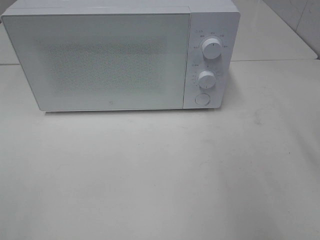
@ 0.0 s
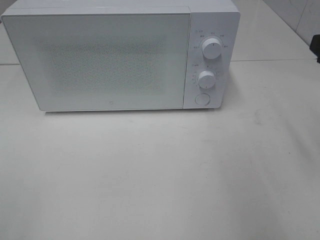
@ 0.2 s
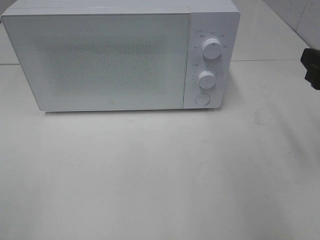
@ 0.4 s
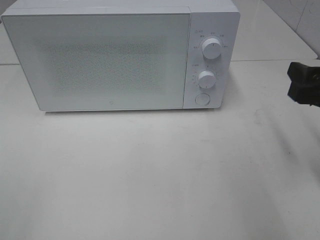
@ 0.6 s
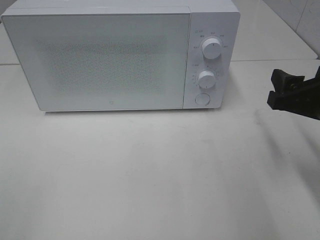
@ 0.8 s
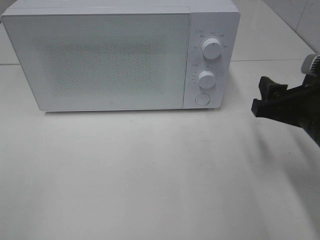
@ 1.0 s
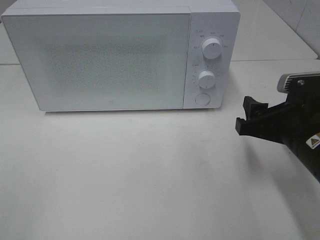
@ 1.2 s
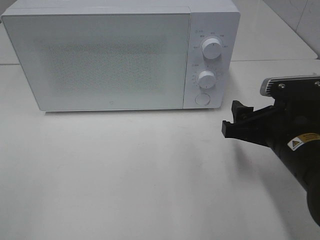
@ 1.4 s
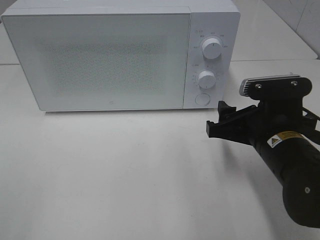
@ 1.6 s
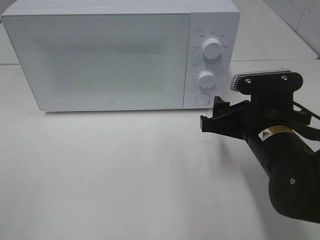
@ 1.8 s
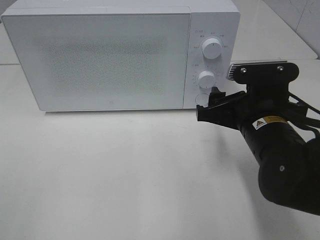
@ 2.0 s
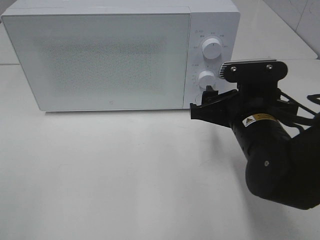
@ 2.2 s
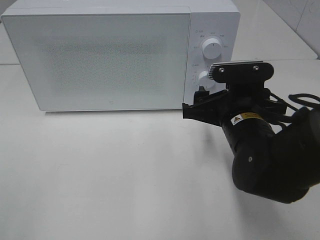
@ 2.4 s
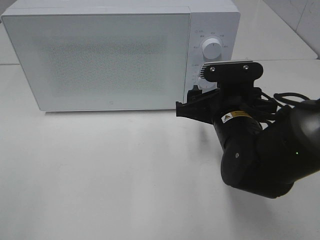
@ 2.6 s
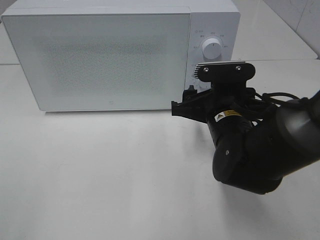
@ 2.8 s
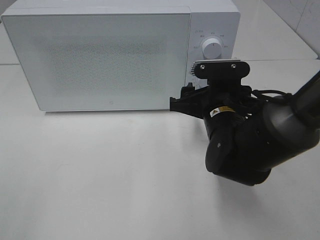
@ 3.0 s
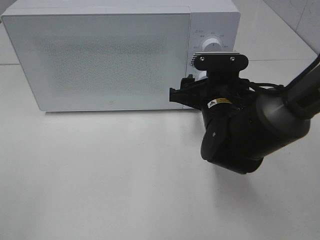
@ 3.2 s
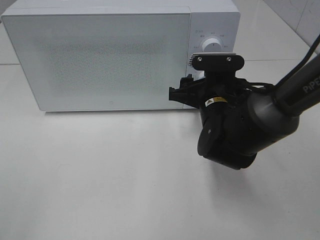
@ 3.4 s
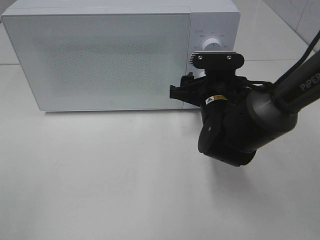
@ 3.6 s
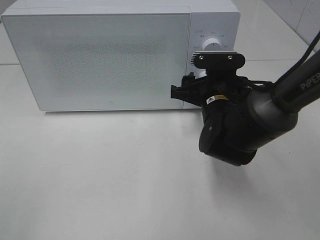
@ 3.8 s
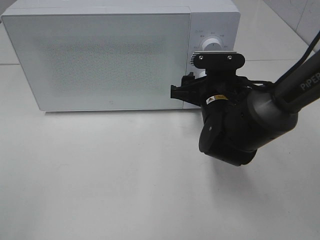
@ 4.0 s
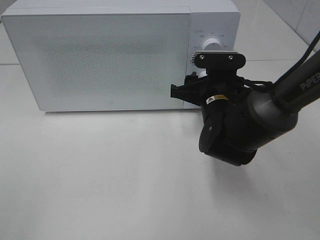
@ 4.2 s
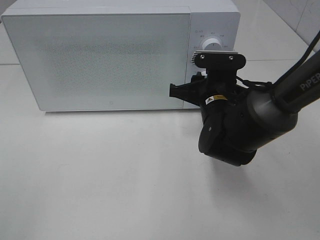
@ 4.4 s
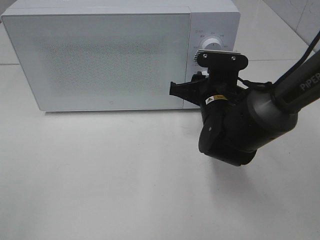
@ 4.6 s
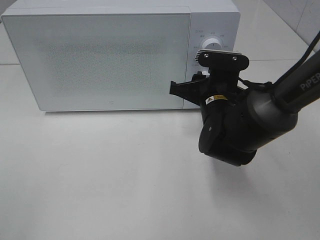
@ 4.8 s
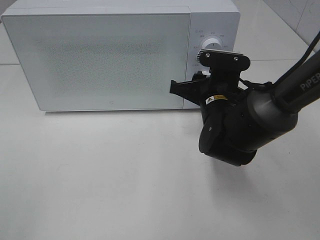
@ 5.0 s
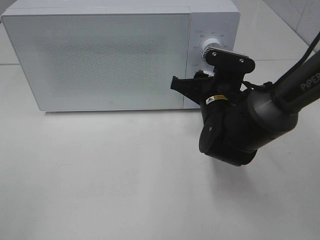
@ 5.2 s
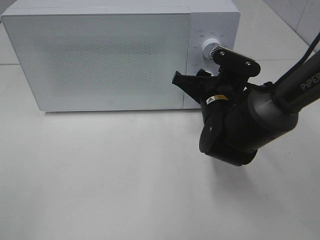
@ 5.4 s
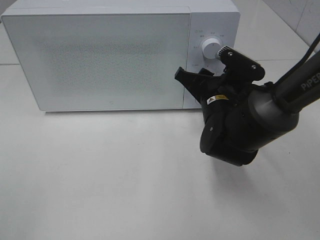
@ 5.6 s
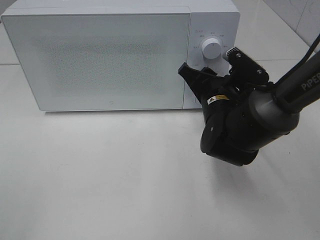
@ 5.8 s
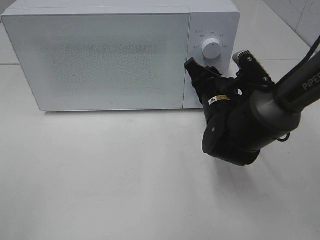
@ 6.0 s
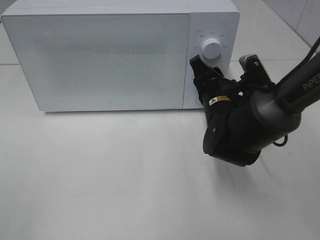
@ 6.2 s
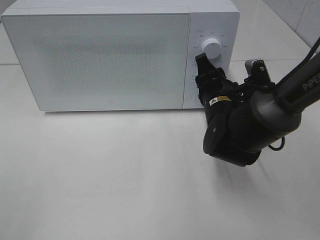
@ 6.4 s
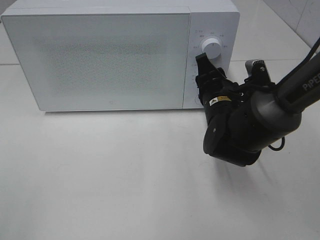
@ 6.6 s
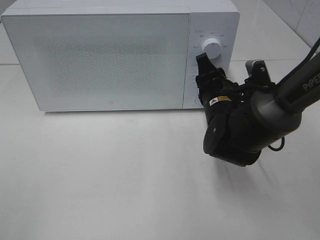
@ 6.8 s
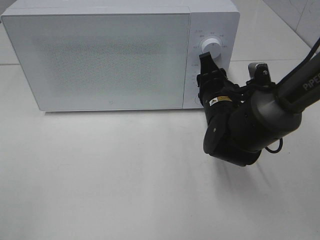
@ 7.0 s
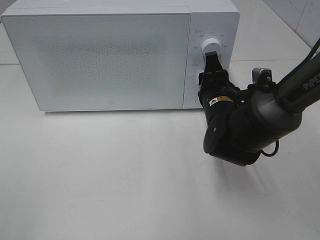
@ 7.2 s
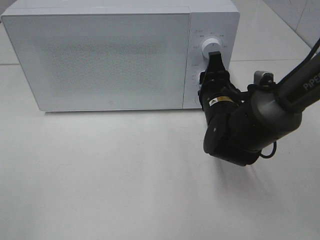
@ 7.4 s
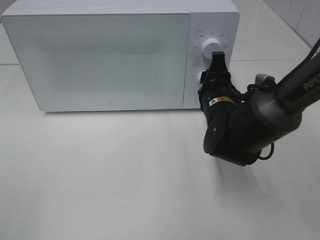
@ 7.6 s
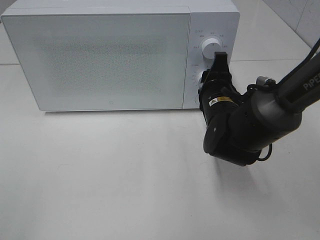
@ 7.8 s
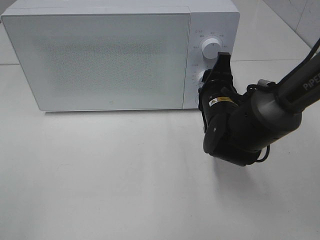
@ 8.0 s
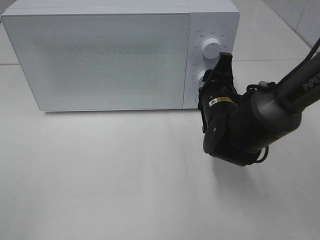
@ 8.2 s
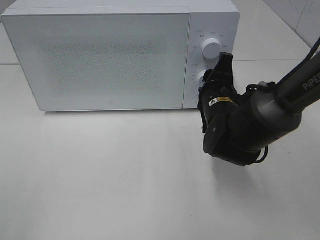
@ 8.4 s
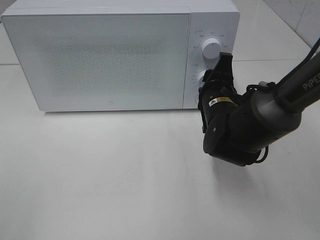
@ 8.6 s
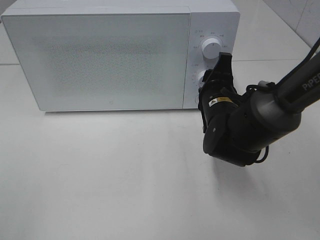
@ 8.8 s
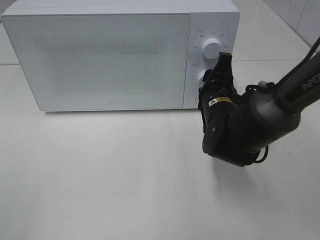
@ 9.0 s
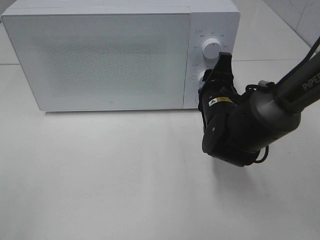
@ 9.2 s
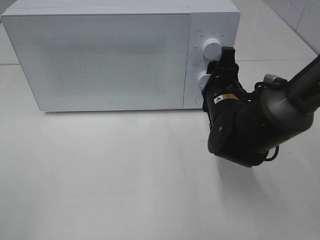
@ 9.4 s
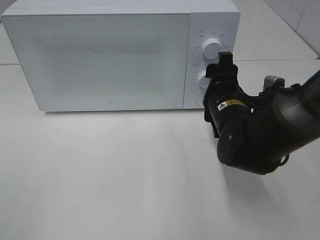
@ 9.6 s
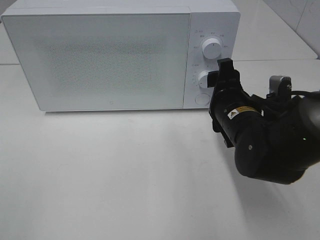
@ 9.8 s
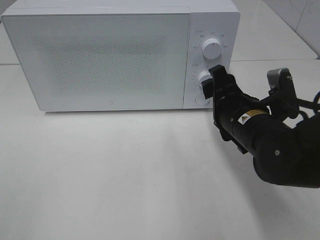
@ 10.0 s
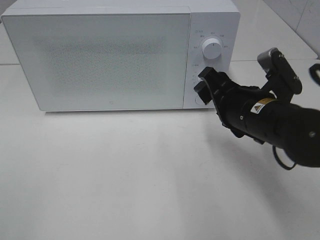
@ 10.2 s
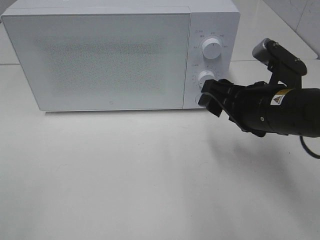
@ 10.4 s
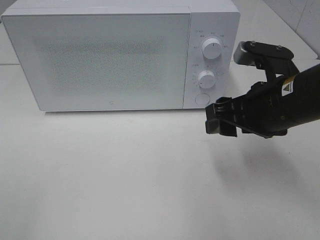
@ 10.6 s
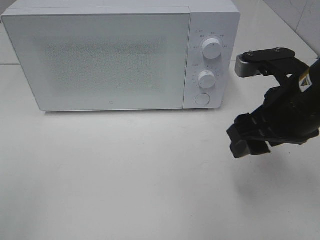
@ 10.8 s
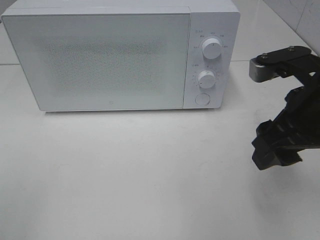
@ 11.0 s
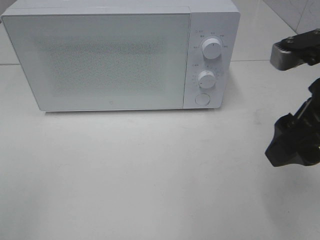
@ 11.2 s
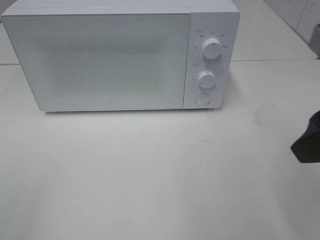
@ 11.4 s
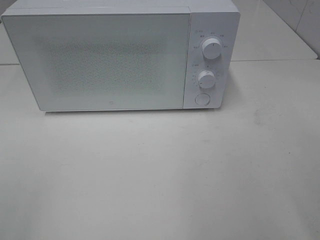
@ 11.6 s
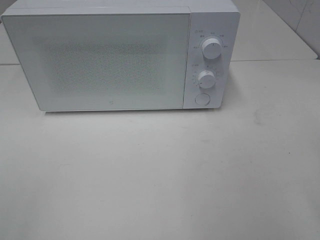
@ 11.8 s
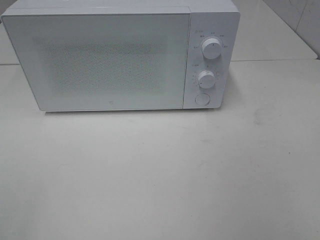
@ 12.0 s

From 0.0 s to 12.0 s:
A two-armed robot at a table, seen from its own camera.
Task of the whole recording: Heat the burger.
Step, from 0.0 s to 9.6 s: Right hand: twist timer button.
From 0.0 s to 1.6 s: The right gripper goes some 20 cm downward and to the left.
From 1.6 s to 3.0 s: The right gripper moves forward and to the left, roughly 10 cm.
From 3.0 s to 4.4 s: The right gripper closes its fingers.
From 7.6 s to 9.0 s: The grippers stay close to where they were, moving slightly.
From 9.0 s to 10.4 s: The right gripper heads backward, upward and to the right, covering about 10 cm.
From 10.4 s to 12.0 s: The right gripper shifts roughly 25 cm backward, upward and to the right.

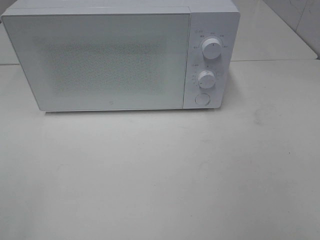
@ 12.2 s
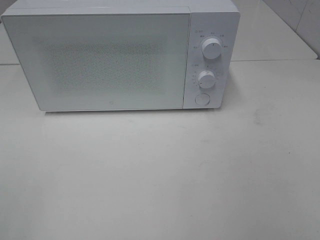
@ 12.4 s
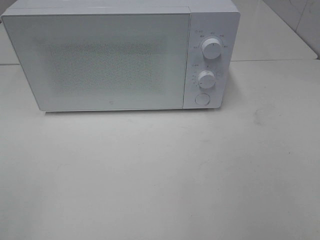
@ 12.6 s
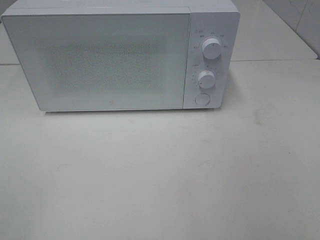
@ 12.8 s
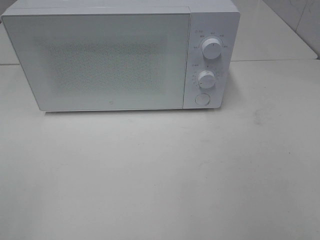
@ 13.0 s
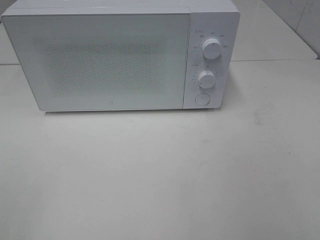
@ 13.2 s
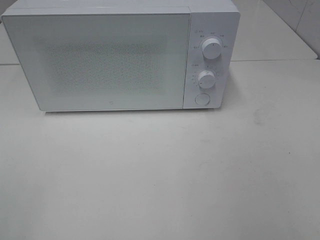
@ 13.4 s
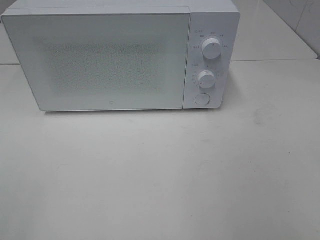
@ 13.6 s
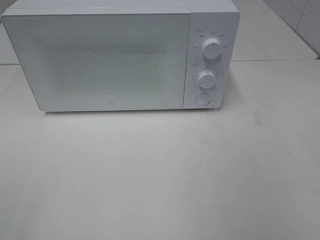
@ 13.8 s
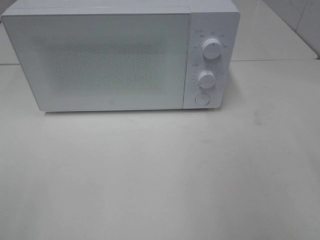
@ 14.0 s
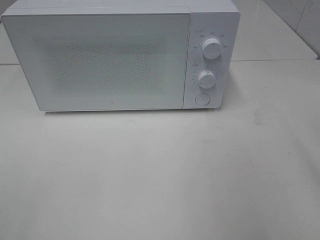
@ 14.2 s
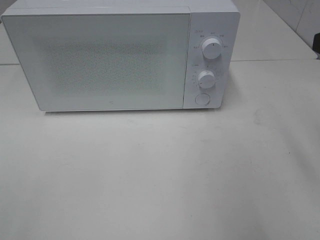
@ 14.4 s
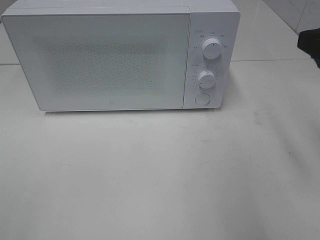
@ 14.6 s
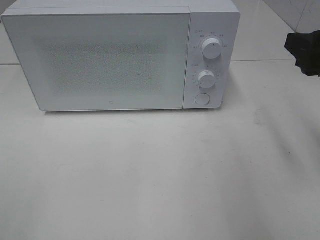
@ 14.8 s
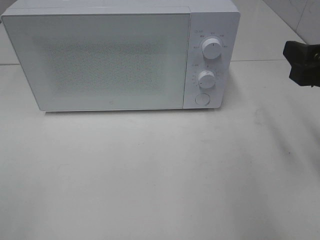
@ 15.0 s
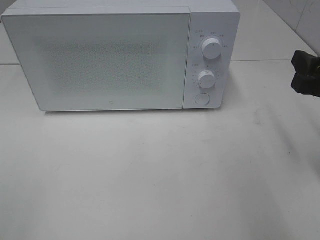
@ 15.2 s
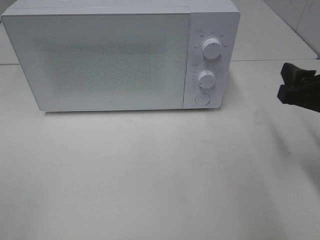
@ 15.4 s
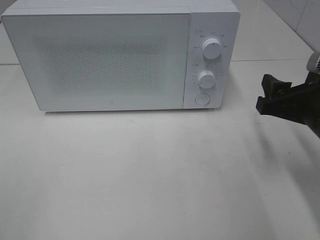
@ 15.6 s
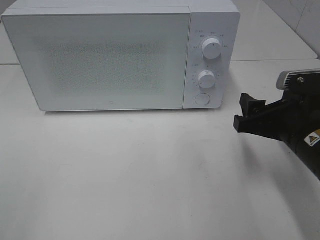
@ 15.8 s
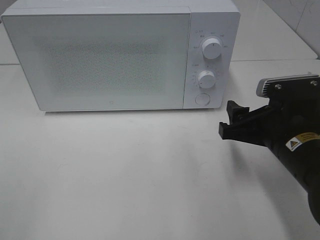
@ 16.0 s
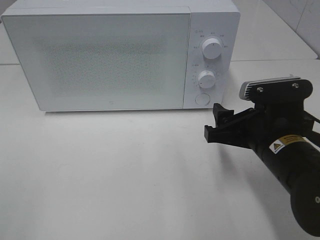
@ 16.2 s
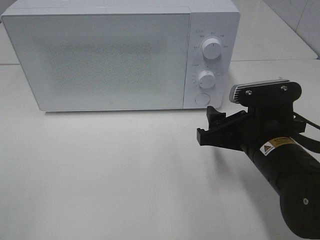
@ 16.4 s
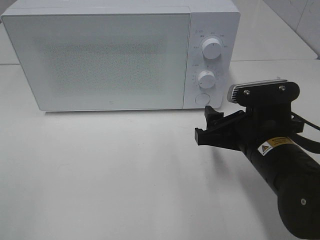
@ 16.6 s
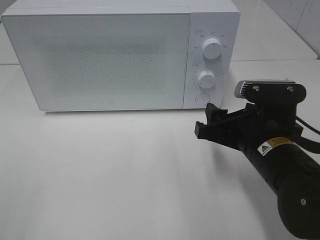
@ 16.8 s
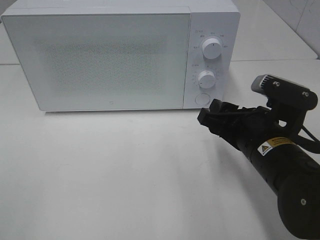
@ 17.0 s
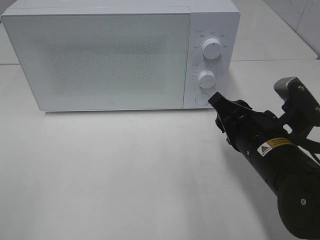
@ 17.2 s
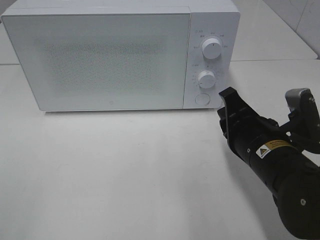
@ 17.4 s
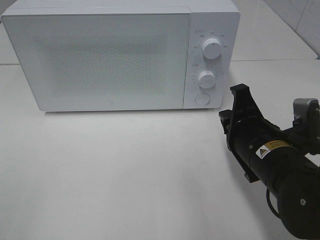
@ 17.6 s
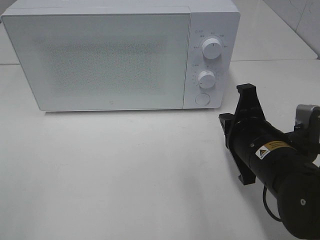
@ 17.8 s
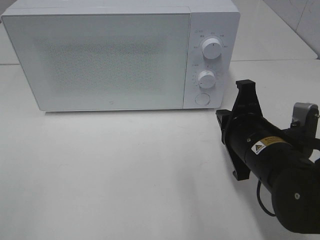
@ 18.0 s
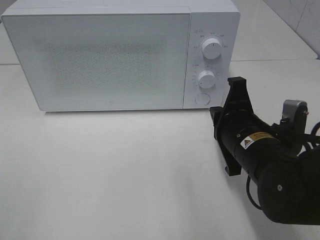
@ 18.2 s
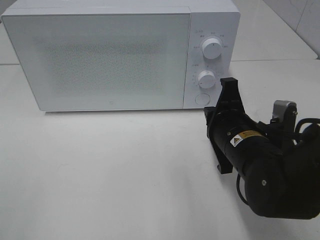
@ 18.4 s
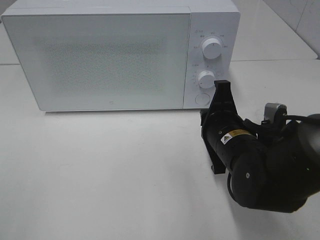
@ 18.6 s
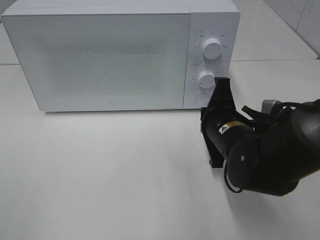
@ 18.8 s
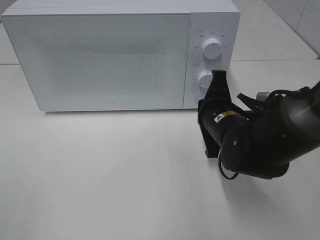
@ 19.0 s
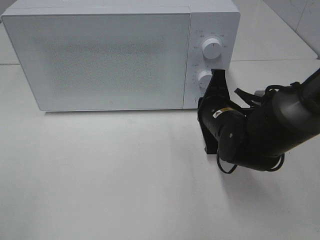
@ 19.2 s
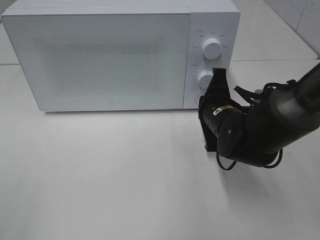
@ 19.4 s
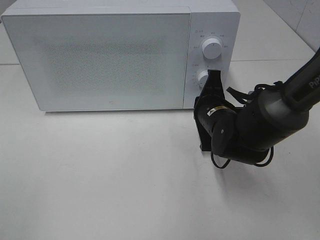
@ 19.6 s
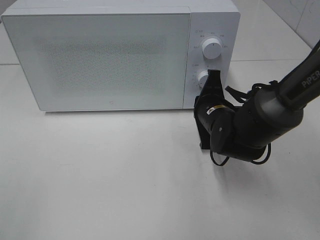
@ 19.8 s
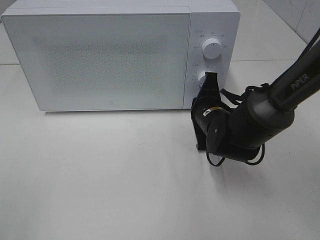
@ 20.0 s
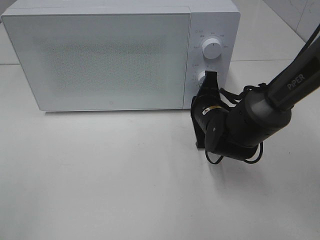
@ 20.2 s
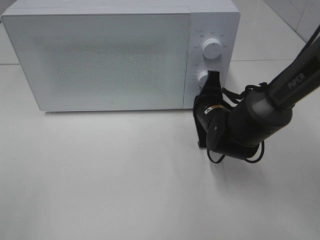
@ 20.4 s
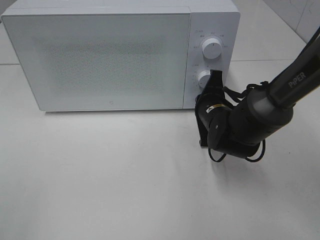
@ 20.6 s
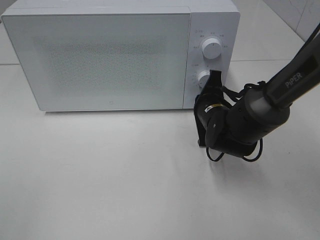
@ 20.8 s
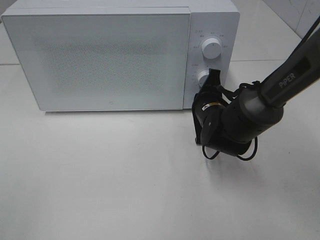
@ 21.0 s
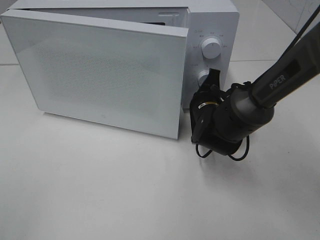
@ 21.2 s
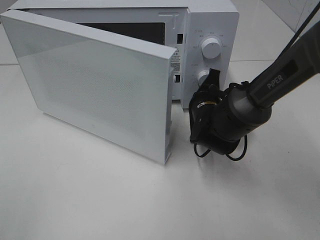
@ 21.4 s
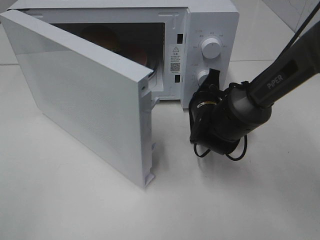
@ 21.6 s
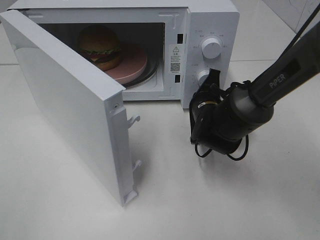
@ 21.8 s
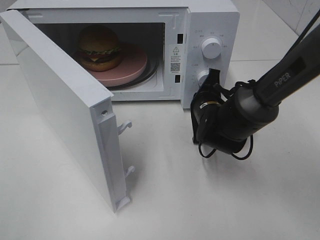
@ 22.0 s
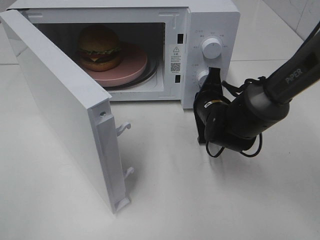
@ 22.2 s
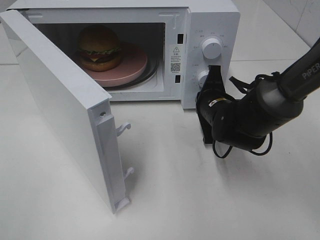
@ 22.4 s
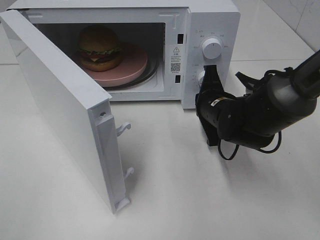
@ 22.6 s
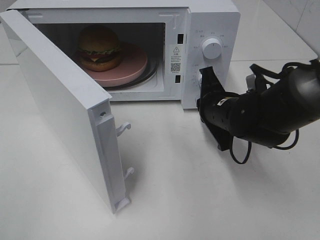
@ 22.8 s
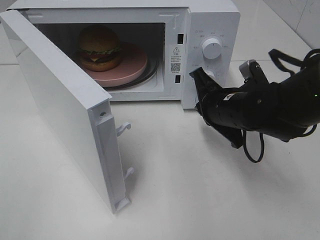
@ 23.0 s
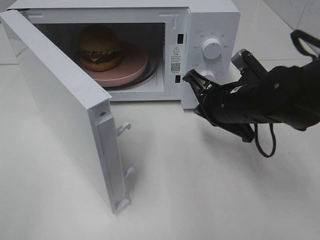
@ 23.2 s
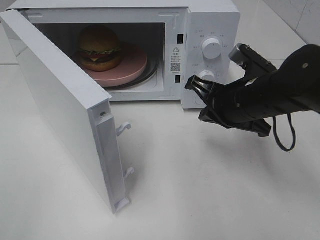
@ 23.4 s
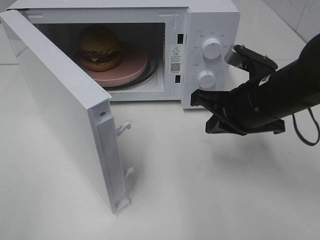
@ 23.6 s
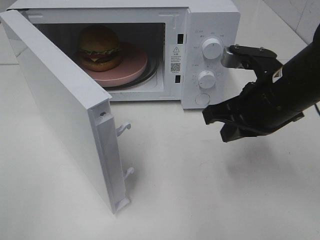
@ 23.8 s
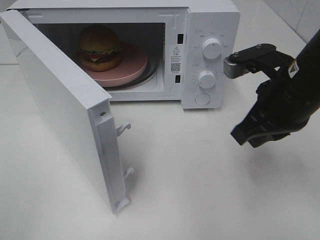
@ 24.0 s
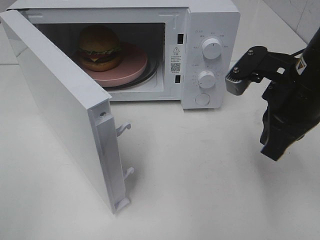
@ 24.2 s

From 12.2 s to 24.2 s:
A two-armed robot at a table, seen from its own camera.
Task of the whole recording: Heat the burger.
Step, from 12.2 s to 22.8 s: Right hand: press the switch.
From 13.8 s to 15.2 s: The right gripper goes approximately 15 cm forward and downward.
From 15.2 s to 16.6 s: The right gripper is displaced to the left and downward by roughly 15 cm.
From 16.6 s to 18.2 s: The right gripper closes up.
From 18.2 s to 19.8 s: The right gripper travels forward by about 10 cm.
From 19.8 s to 21.2 s: The grippers make only small movements.
From 22.6 s to 24.2 s: The right gripper heads upward, backward and to the right, covering roughly 15 cm.
